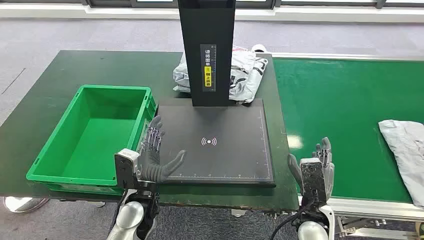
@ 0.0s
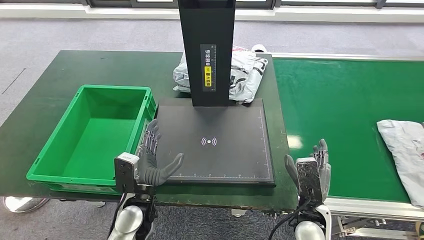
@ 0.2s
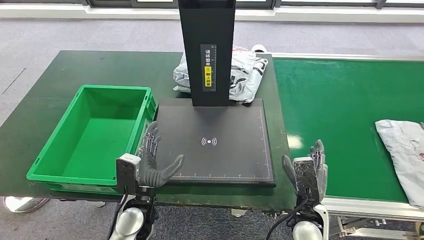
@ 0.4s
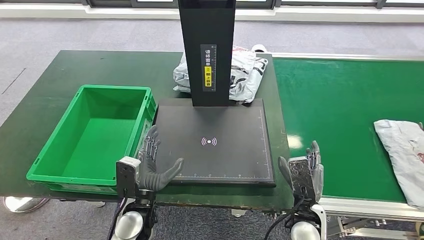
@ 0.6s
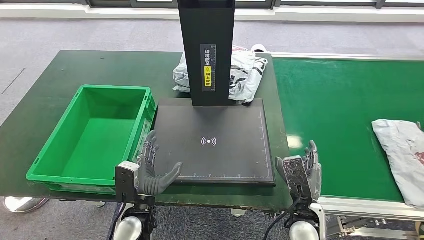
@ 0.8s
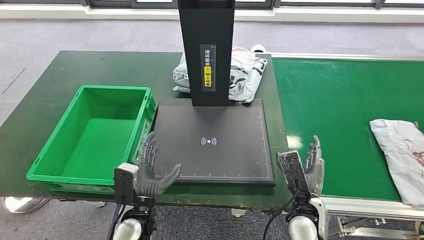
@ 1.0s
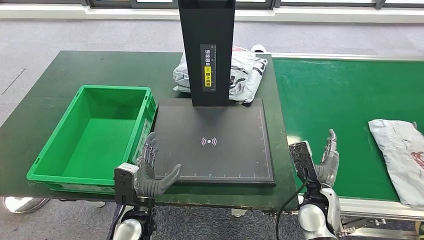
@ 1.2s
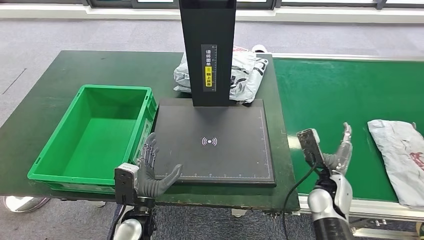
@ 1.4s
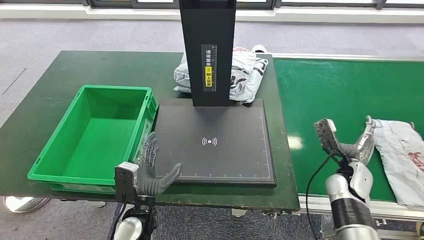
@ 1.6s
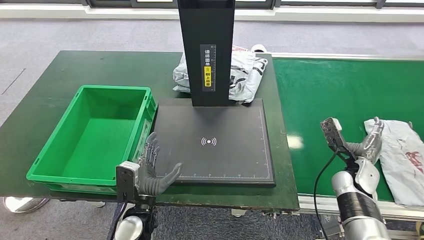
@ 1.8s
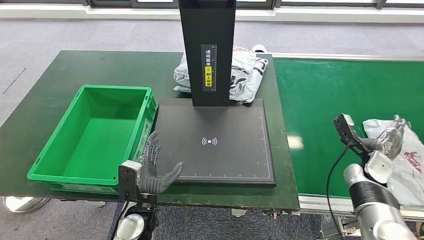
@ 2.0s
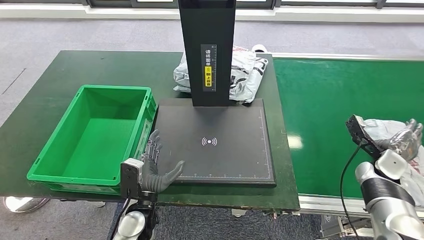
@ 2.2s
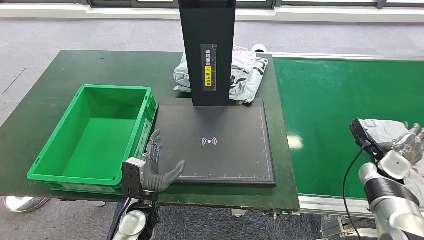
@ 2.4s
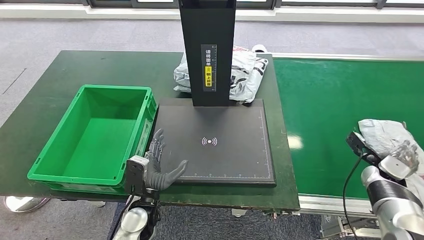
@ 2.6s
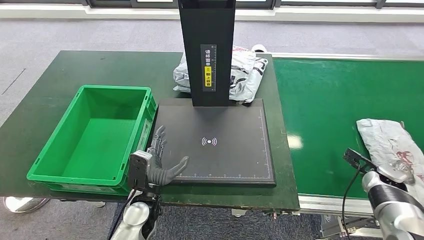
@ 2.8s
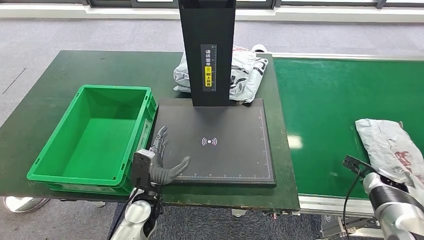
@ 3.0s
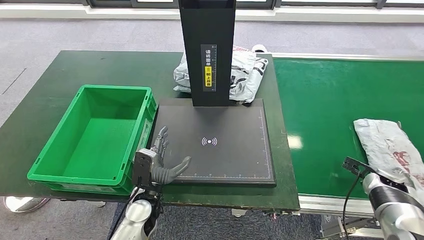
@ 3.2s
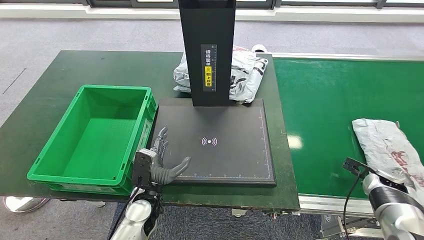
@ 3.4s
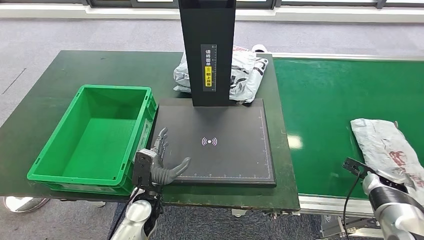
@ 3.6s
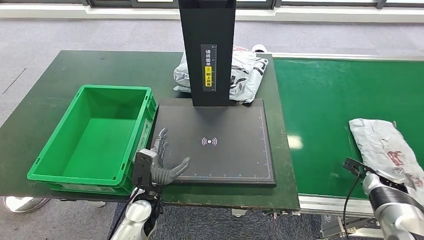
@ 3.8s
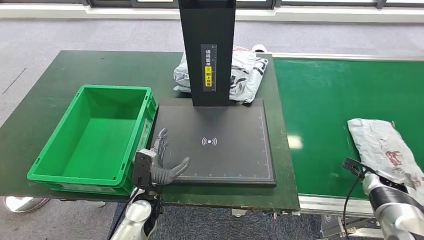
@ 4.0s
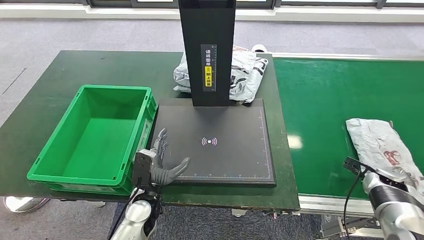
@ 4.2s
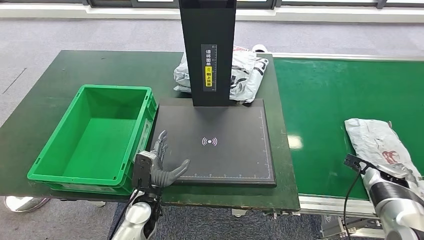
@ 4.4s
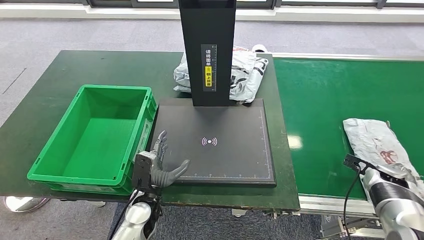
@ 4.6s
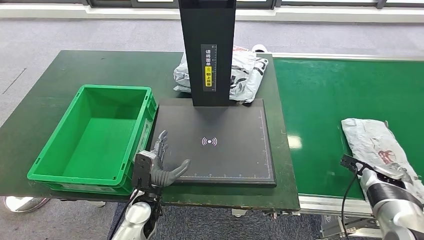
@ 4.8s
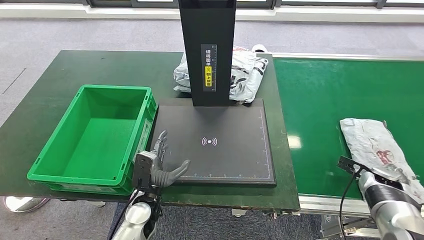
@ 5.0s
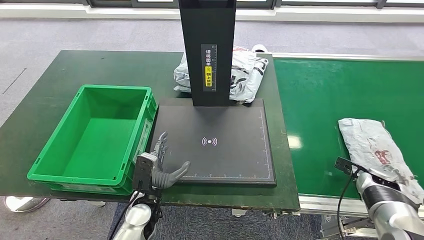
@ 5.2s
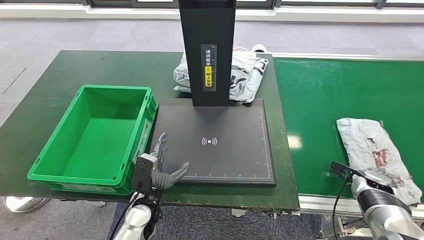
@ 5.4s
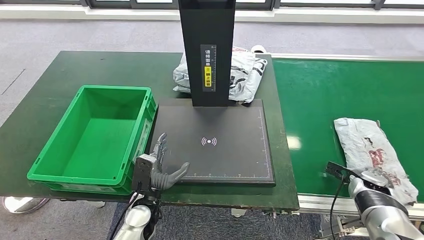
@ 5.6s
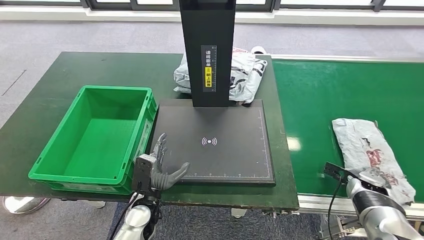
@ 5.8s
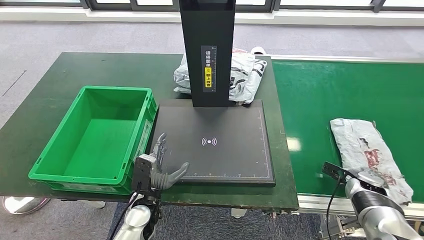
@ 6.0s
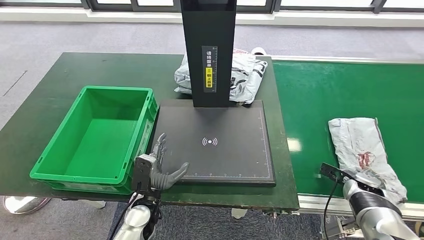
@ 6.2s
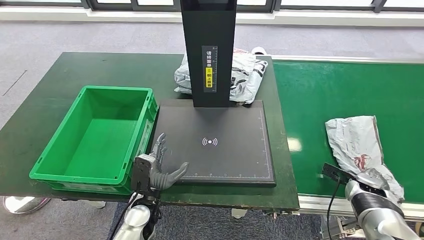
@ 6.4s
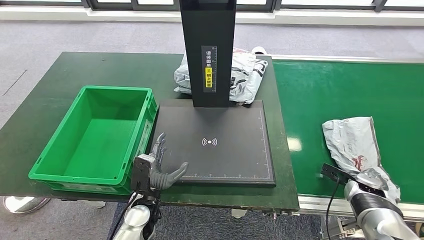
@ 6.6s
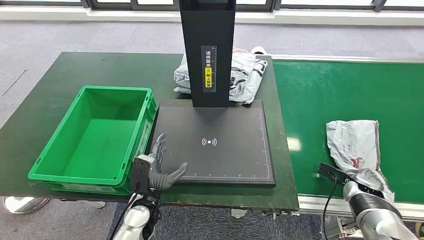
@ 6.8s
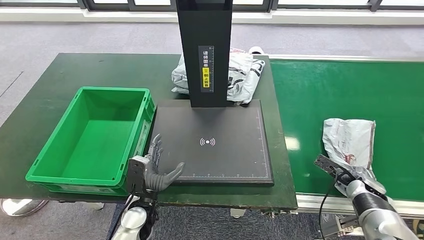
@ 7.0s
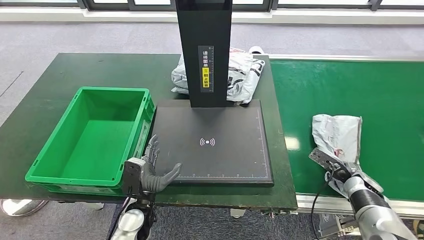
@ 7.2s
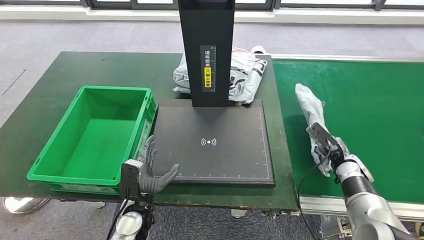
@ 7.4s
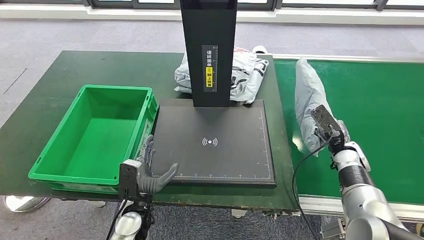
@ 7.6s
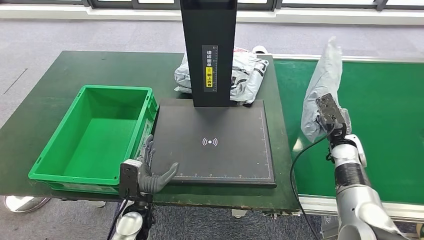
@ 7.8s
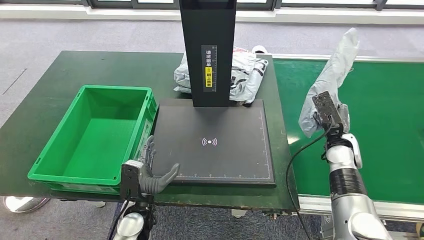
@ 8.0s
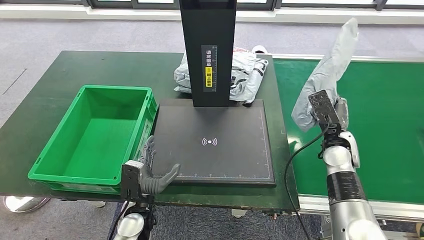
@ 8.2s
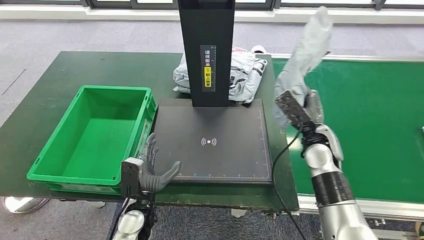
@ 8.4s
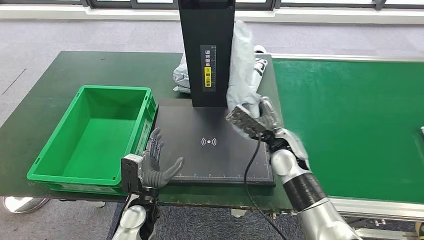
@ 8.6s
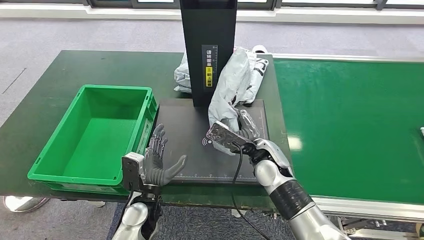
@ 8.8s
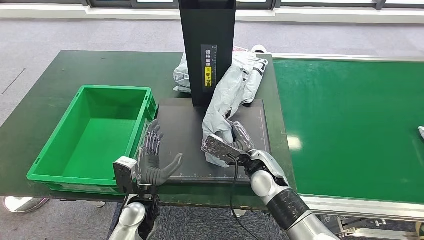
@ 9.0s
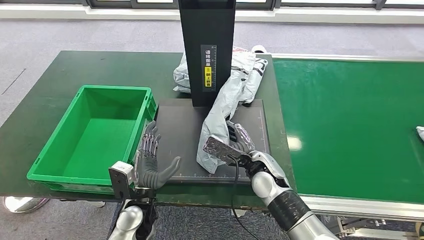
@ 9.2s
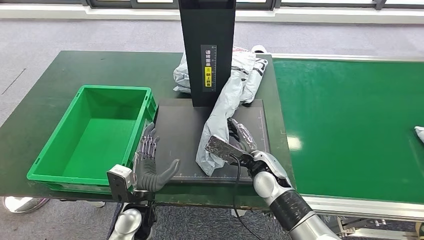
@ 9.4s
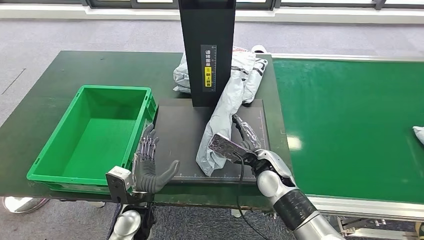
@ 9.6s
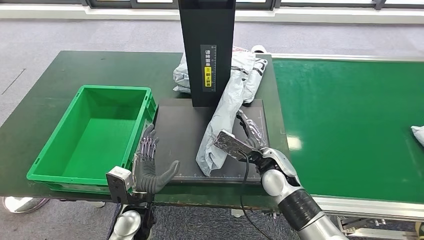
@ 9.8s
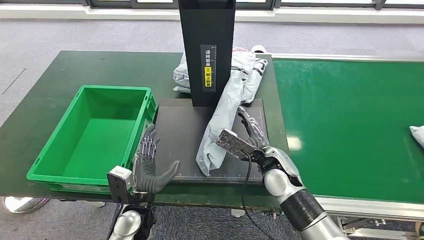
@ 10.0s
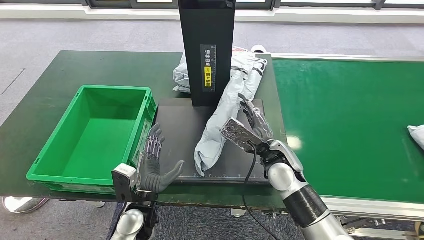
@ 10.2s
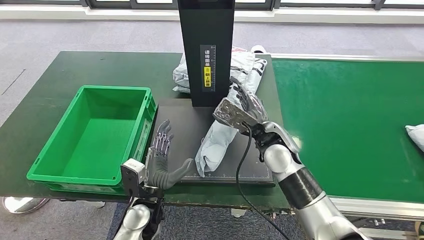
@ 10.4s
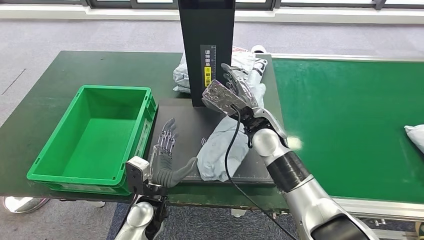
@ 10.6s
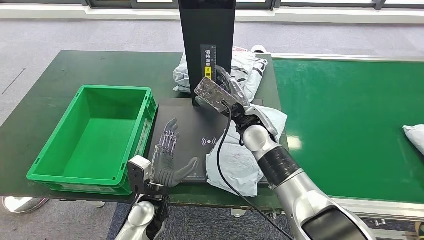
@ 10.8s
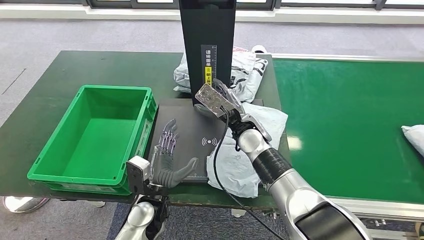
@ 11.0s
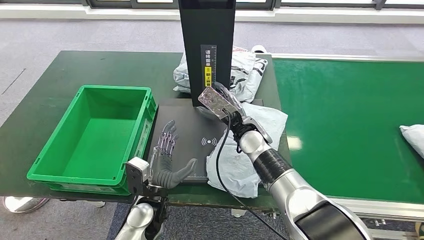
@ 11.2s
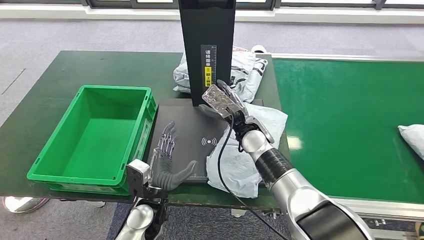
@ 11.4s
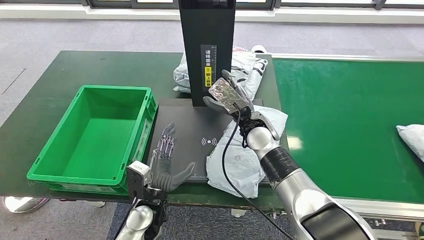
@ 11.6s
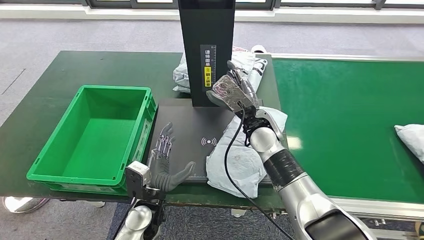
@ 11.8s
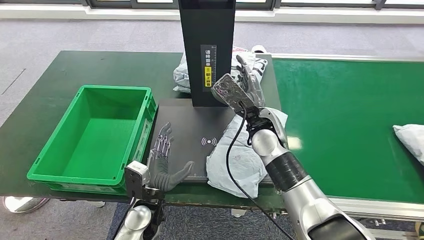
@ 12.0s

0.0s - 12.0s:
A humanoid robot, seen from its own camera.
Step, 0.0s - 7.6s: Take the parcel off the conveyor belt.
Step, 7.8s - 11.6s: Place the parcel onto the inbound machine.
1.6s - 3.0s: The right hand is displaced to the right by about 15 cm.
3.0s - 4.4s: Neither hand changes place.
9.0s - 10.4s: The right hand goes about 10 cm upward.

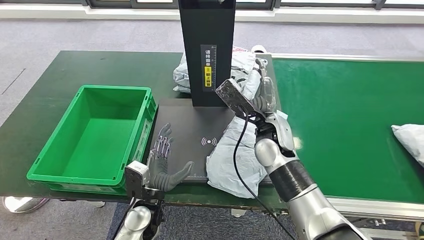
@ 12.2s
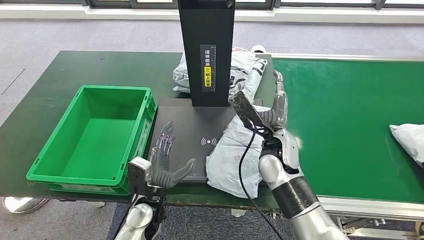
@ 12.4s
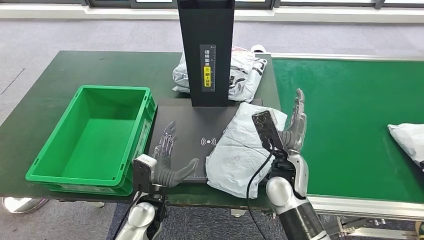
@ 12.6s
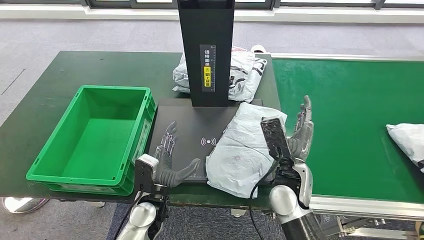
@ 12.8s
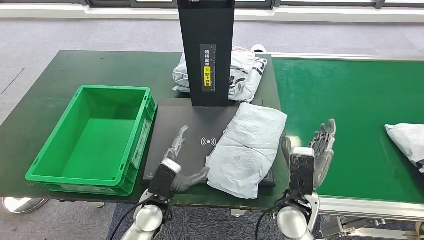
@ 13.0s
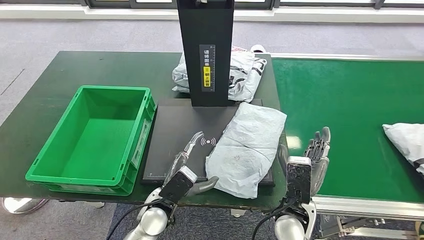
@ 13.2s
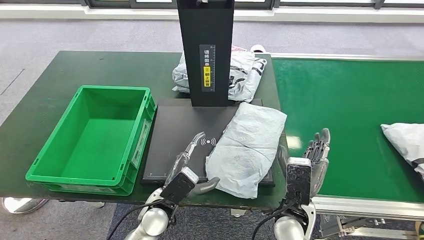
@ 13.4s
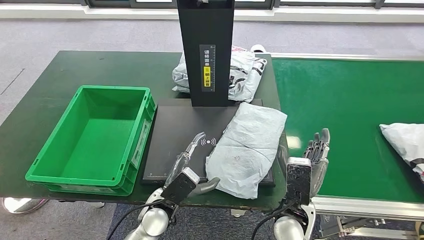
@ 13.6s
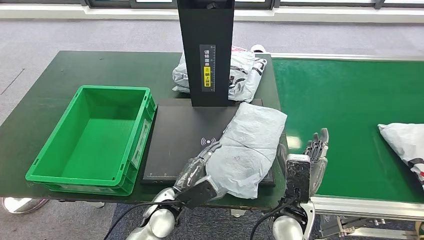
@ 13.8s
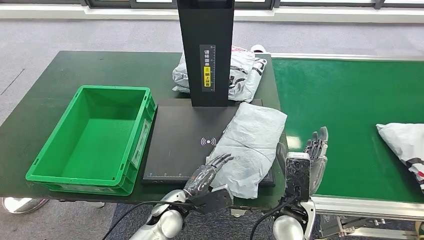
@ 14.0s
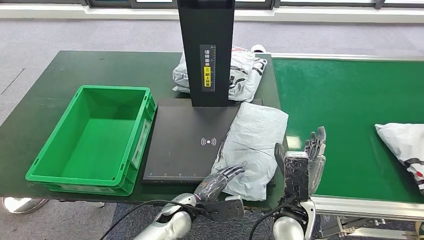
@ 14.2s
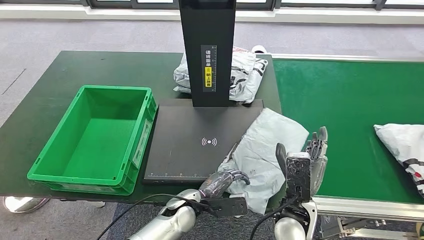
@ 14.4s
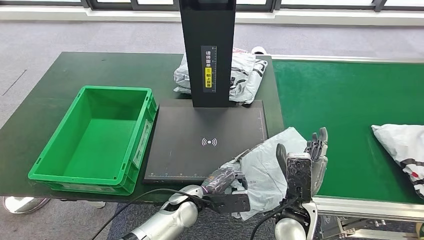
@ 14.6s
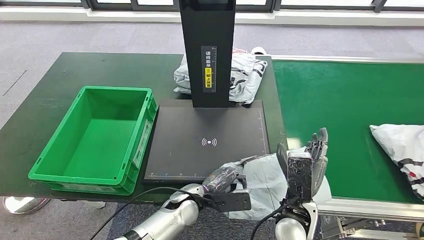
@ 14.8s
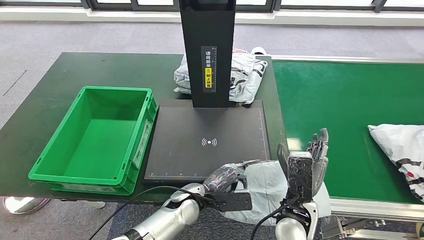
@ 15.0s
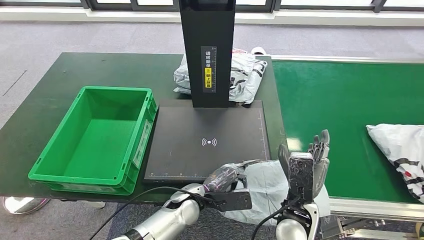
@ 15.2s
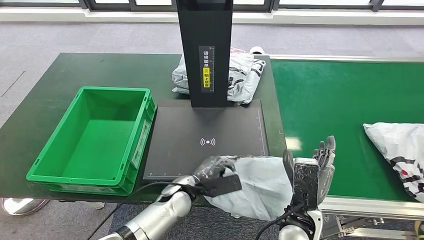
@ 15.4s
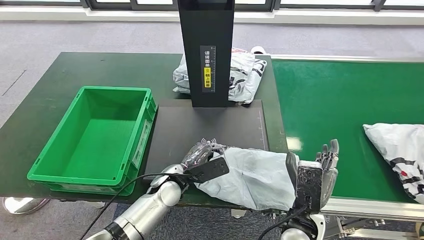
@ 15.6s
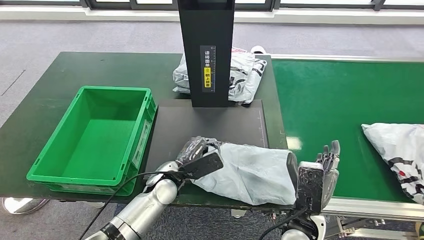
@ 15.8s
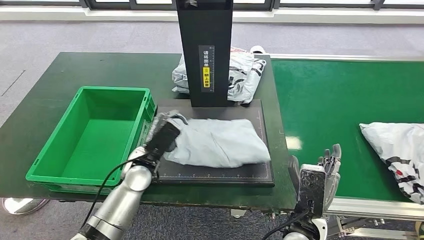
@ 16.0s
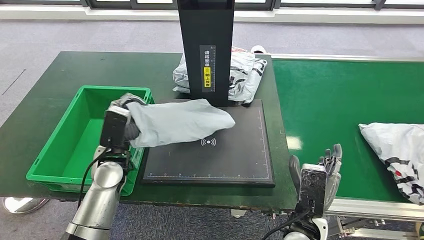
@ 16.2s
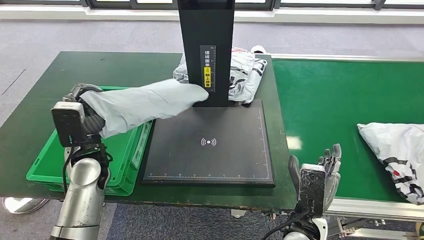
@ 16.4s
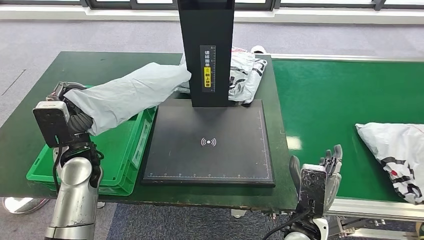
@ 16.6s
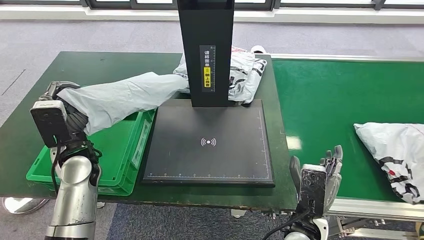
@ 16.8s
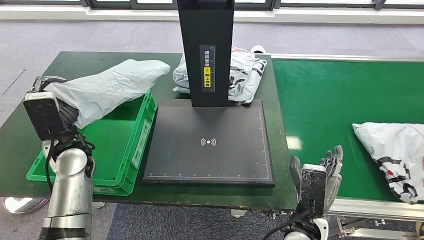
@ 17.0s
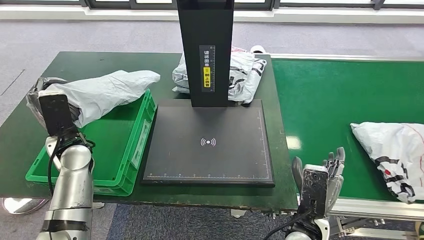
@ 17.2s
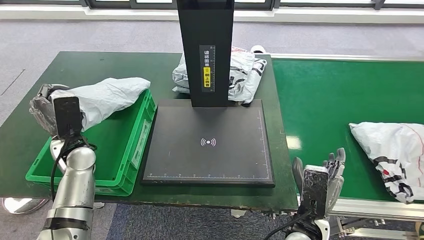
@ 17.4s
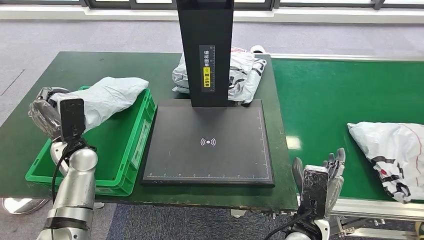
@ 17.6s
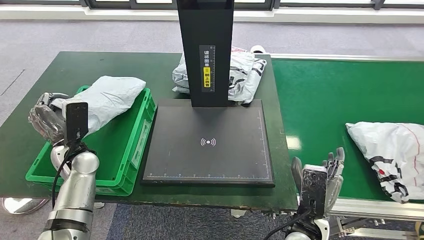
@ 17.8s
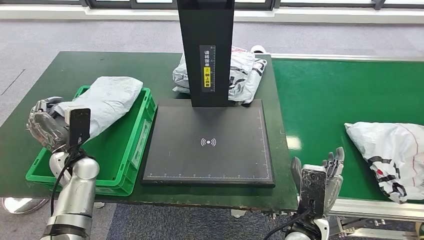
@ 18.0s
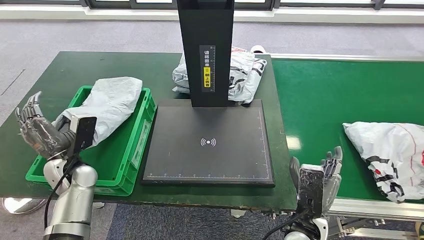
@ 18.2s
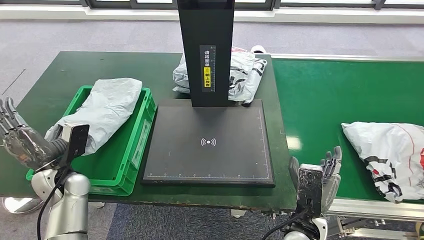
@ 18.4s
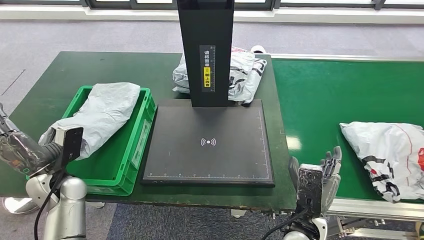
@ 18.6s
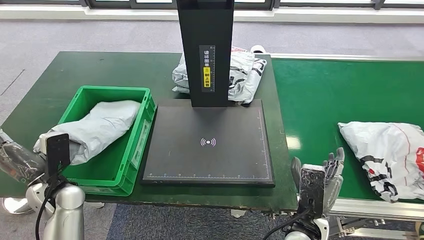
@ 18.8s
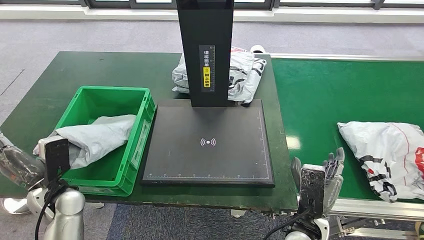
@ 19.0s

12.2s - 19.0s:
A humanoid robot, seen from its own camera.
Step, 12.2s - 16.0s: Pick up the parcel from the inbound machine.
12.2s - 13.6s: The right hand shifts approximately 20 cm backward and downward.
17.6s - 19.0s: The left hand travels backward by some 10 cm.
